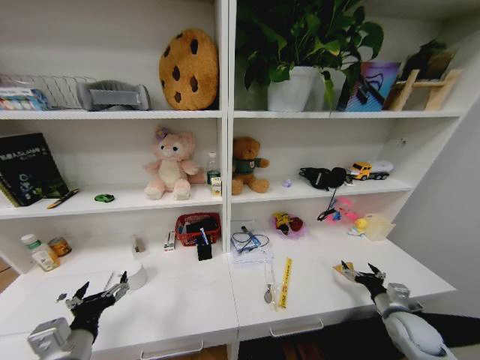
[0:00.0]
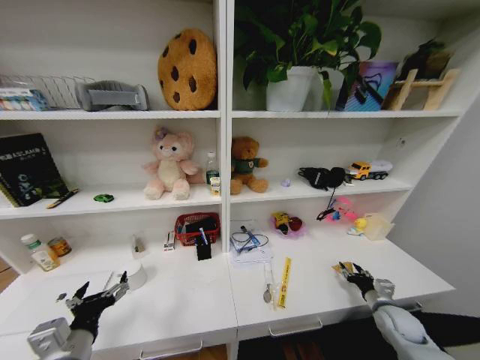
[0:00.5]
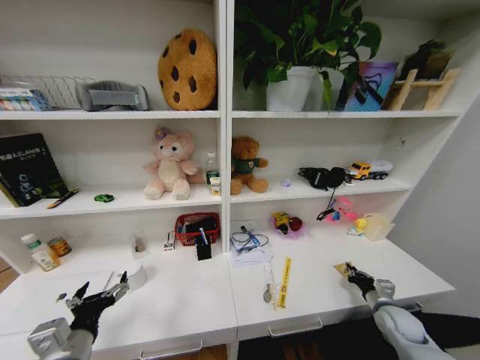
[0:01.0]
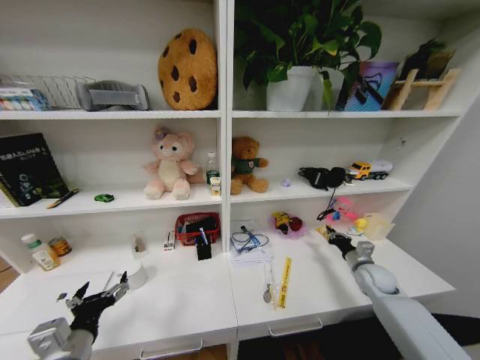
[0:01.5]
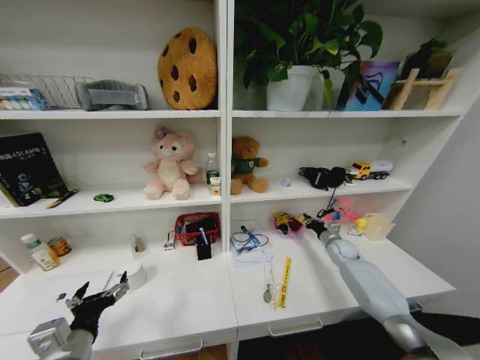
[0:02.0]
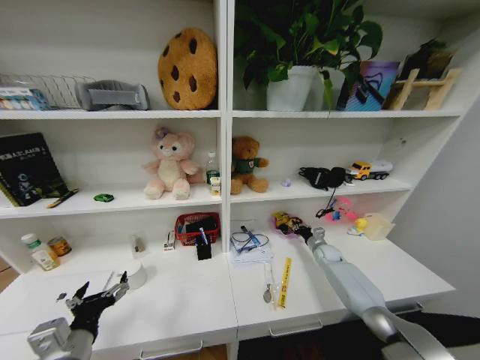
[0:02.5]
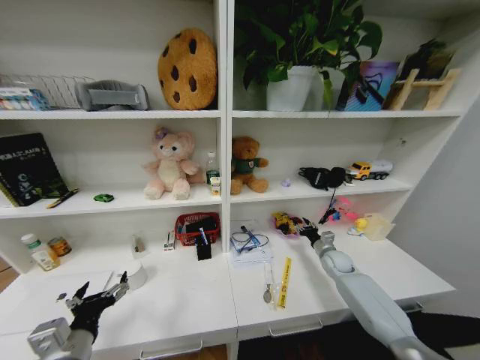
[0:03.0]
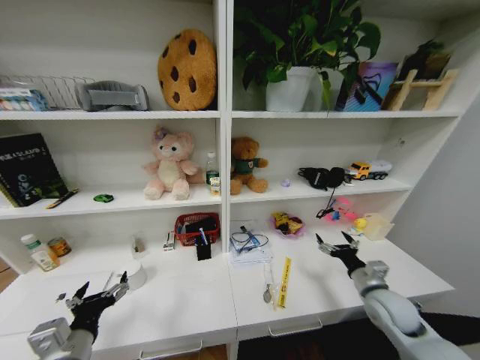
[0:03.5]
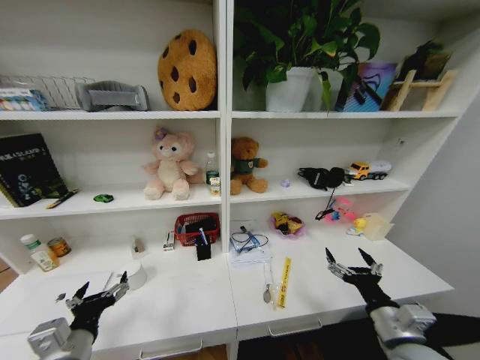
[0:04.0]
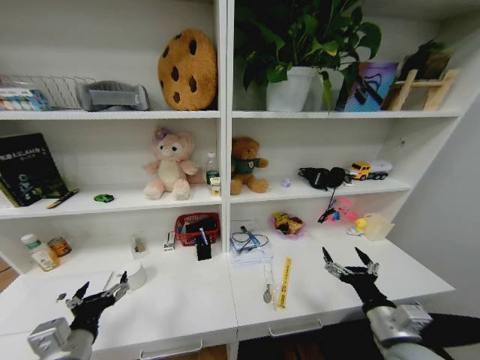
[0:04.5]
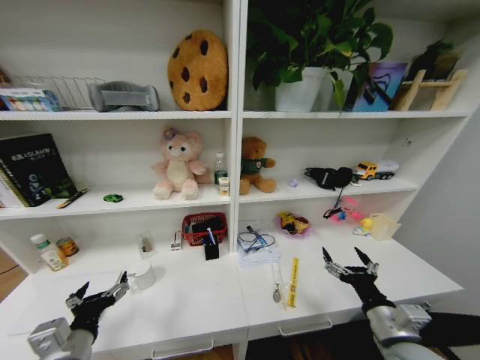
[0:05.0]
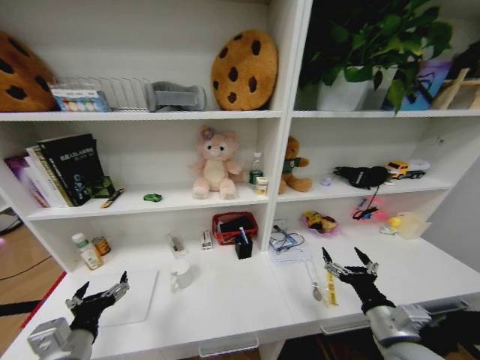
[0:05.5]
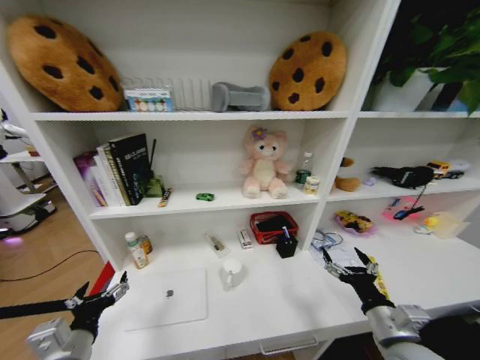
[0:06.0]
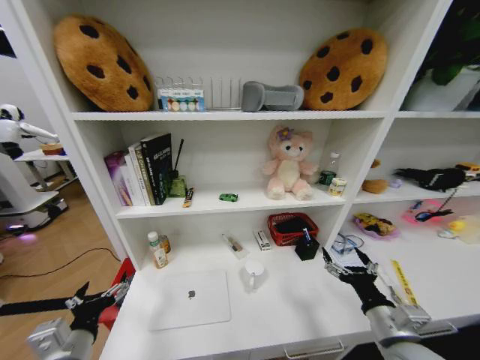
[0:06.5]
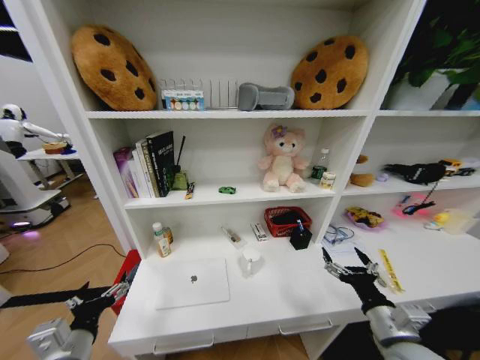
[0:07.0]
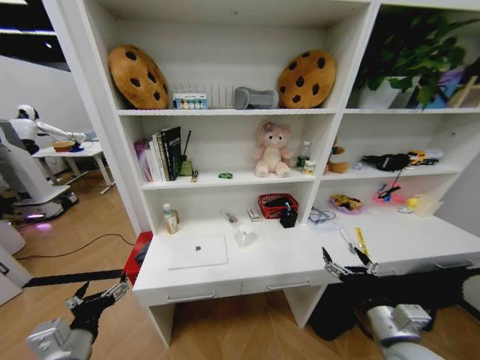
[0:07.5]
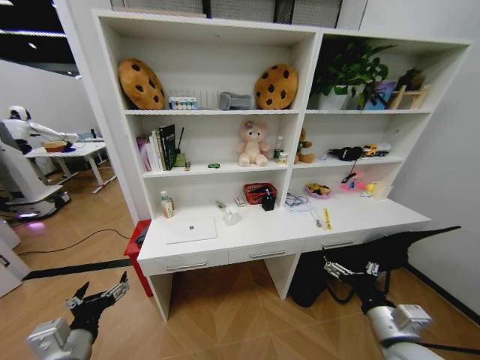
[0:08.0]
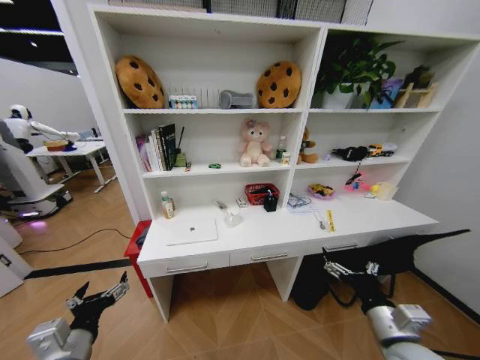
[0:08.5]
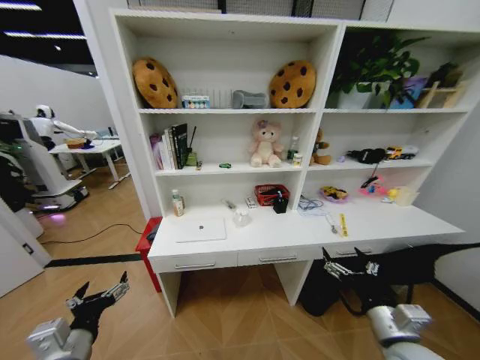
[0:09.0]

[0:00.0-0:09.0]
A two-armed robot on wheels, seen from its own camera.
Task of the whole recording: Organize the objects on the table.
0:00.0 to 0:02.0: The right gripper heads forward, covering about 25 cm, and closes.
0:02.0 to 0:04.5: The right gripper heads backward, covering approximately 35 cm, and opens its fingers.
